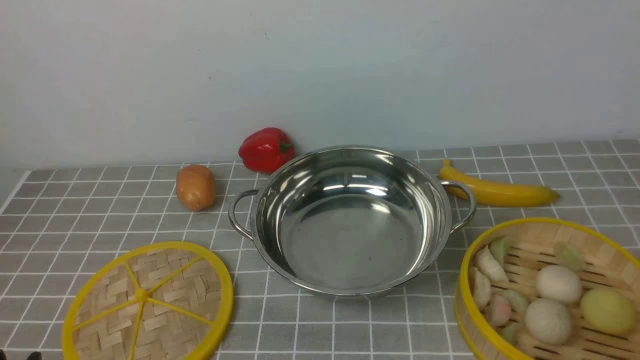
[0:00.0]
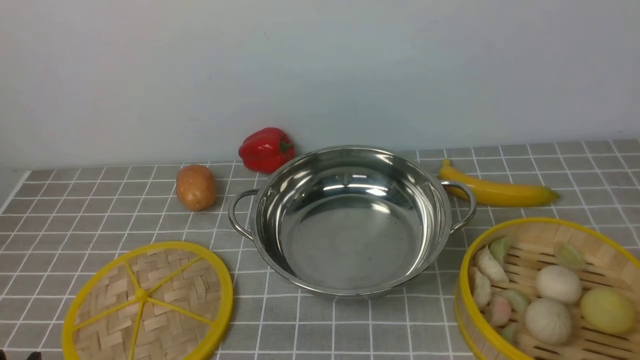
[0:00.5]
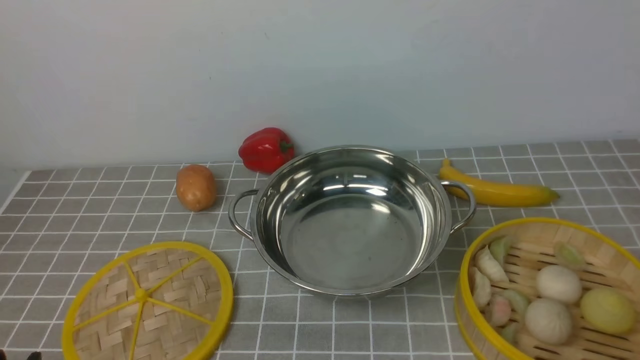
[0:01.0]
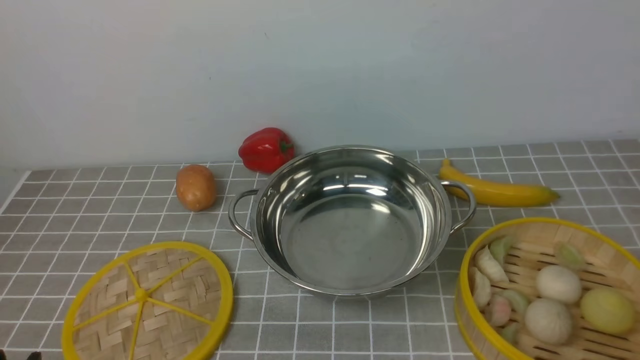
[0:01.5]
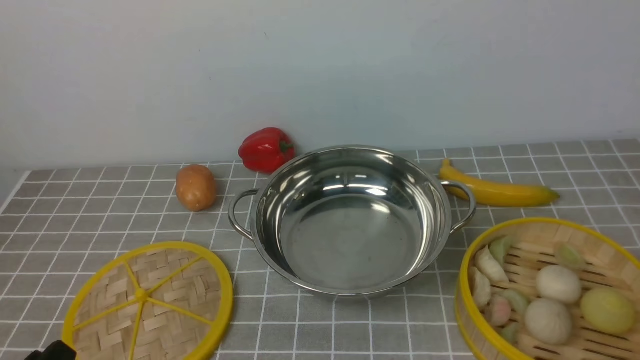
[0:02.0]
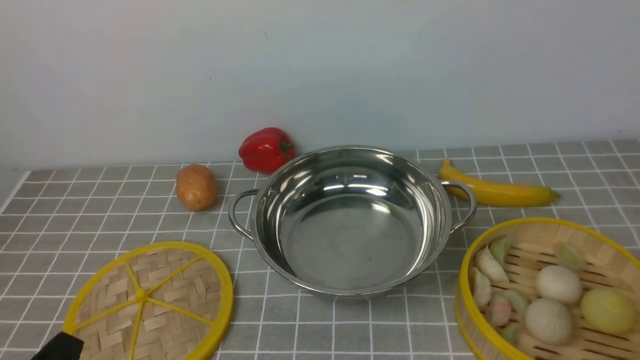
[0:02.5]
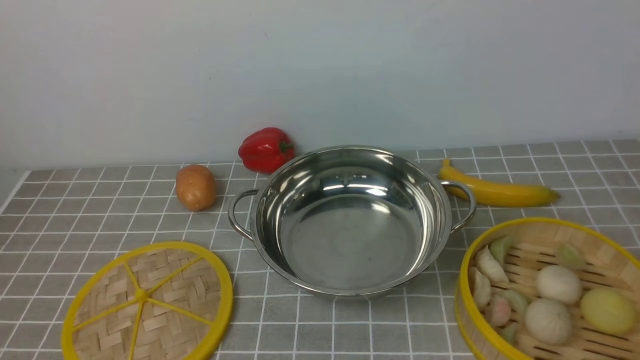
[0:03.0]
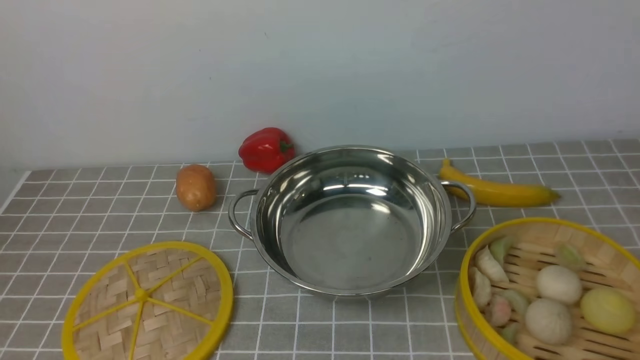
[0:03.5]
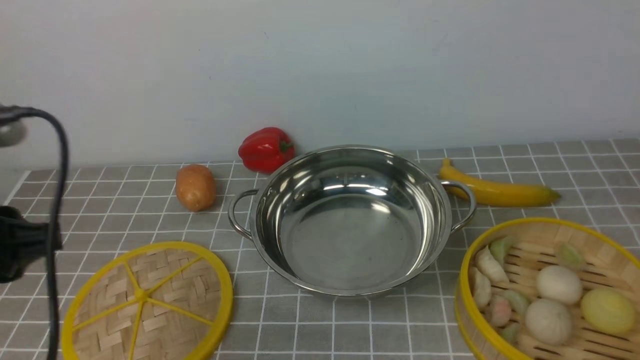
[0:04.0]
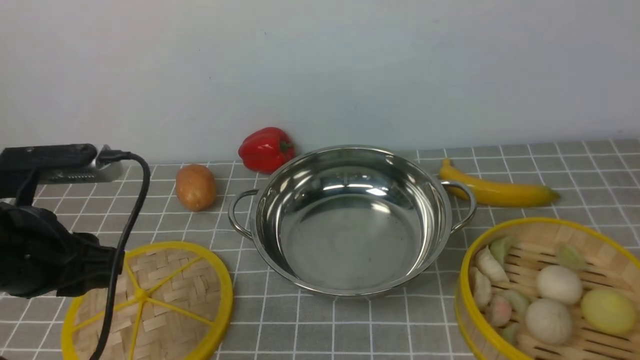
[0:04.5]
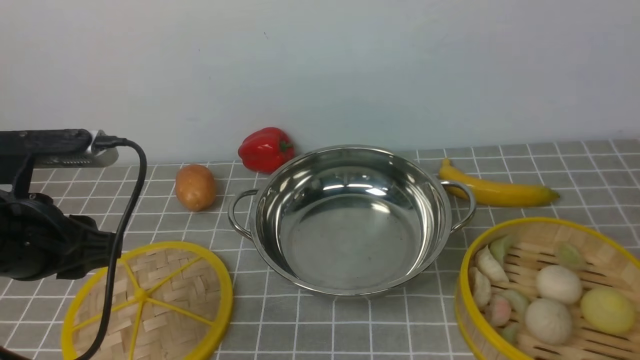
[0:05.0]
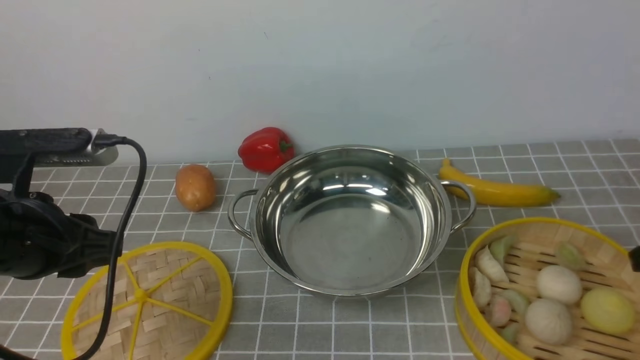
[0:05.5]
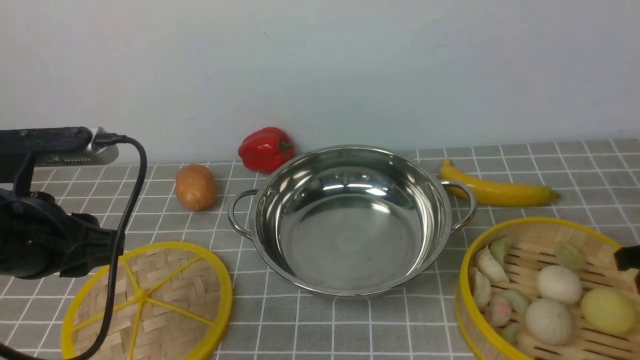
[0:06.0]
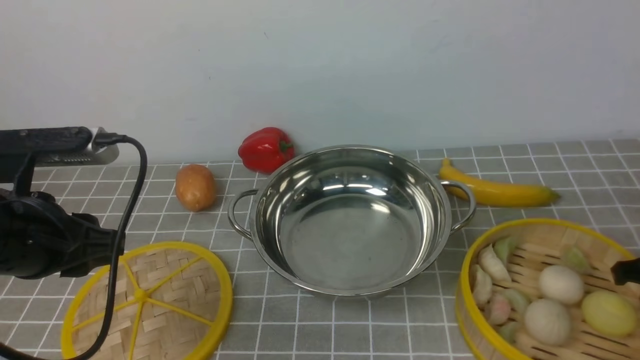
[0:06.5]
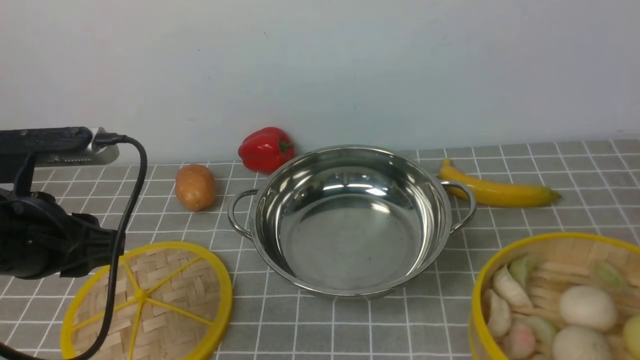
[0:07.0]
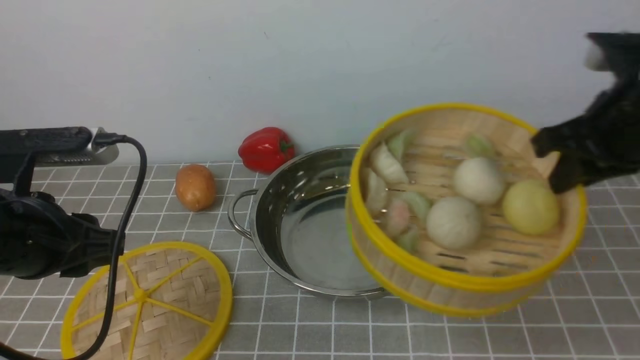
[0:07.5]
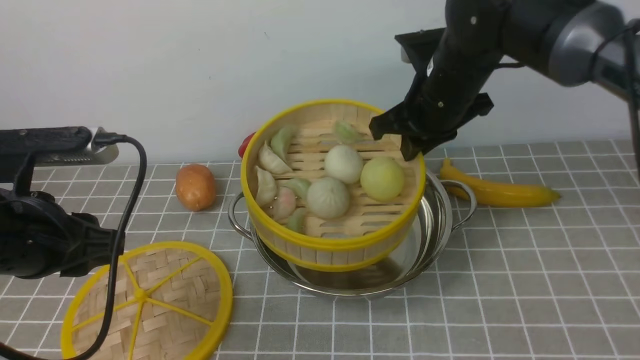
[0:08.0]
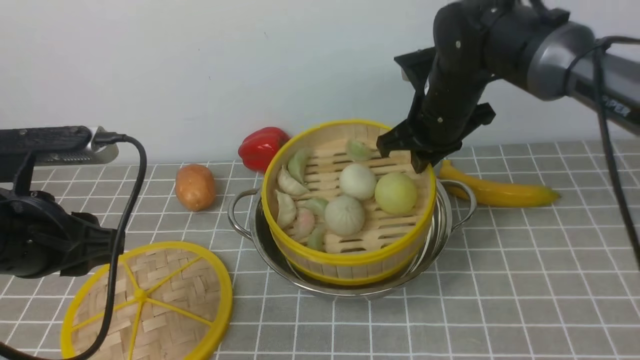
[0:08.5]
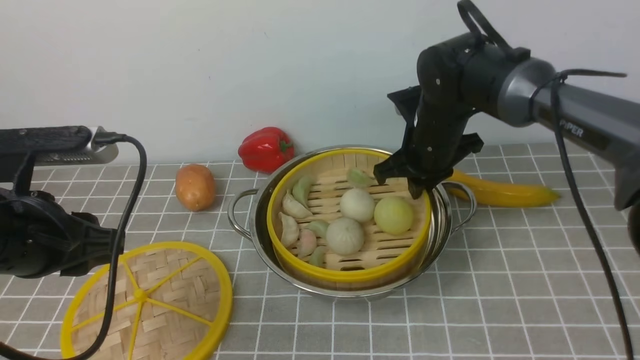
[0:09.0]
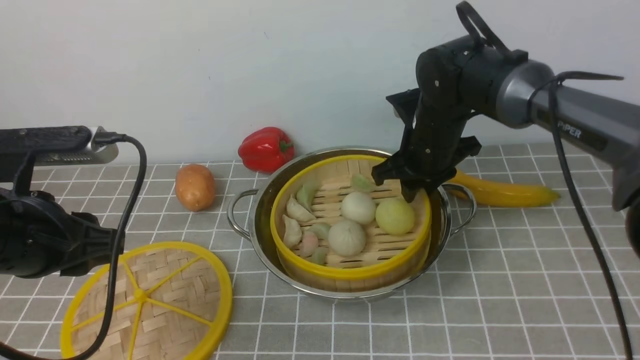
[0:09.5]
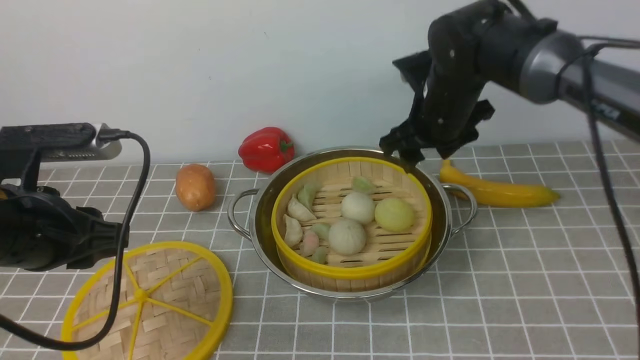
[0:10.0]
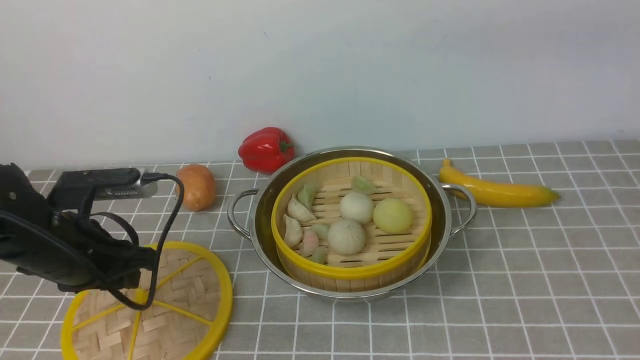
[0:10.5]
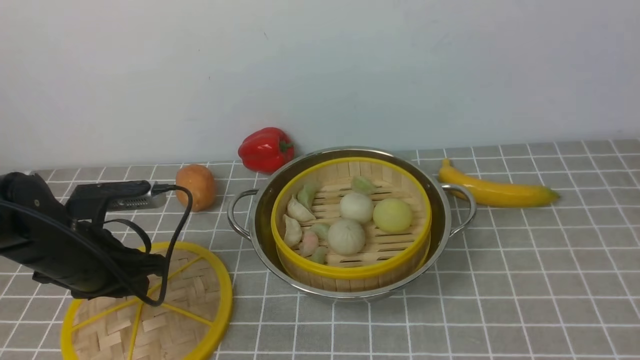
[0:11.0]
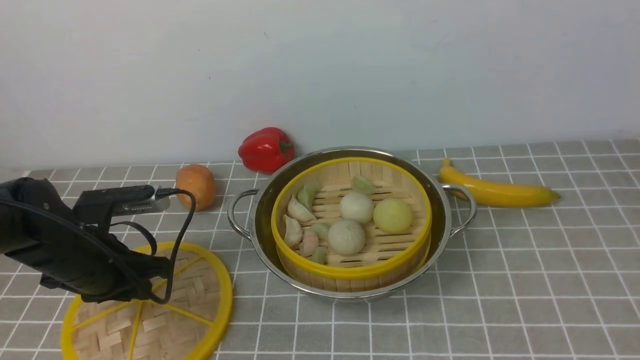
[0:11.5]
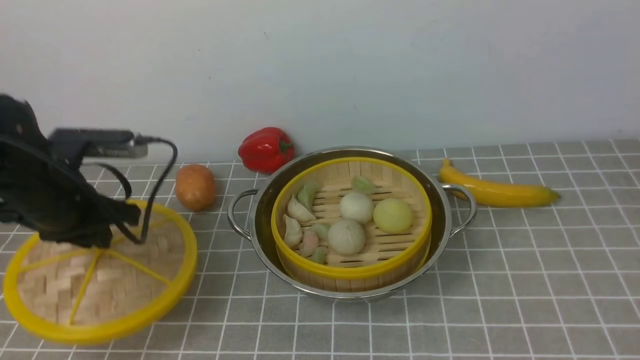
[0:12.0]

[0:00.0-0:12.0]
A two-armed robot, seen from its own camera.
Task of the whole recording: place the steamer in the pot on the grey tablecloth, and put the lid on the steamer.
Step, 0:00.0 to 0:06.5: use the right arm to lift the steamer closest to it.
Step, 0:07.0 to 0:09.5: use the right arm to put the steamer into the iron steamer pot in the middle.
0:02.0 to 0:04.0: The left gripper travels upward and forward by approximately 20 cm.
0:04.0 to 0:06.0: The left gripper moves forward, about 5 cm.
0:06.0 to 0:08.0: The right gripper heads to the left, forward and upward, covering approximately 30 cm.
0:08.0 to 0:10.0: The right gripper reaches about 10 cm downward, then returns, and opens.
0:10.0 to 0:12.0: The left gripper goes roughly 10 cm forward, goes downward and returns, approximately 10 cm each way, and closes its fingers. Meanwhile the right gripper is displaced backward, upward and to the right by about 50 cm.

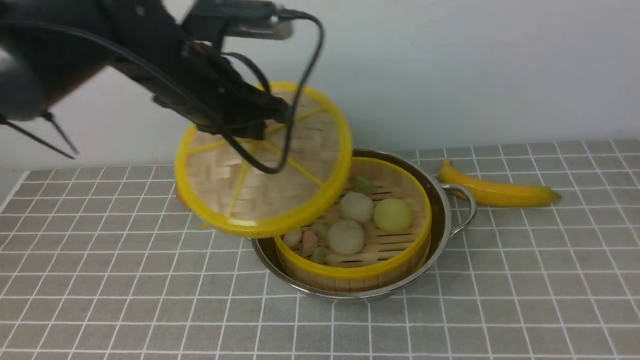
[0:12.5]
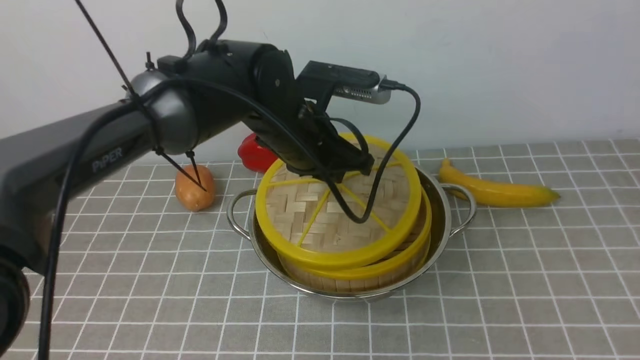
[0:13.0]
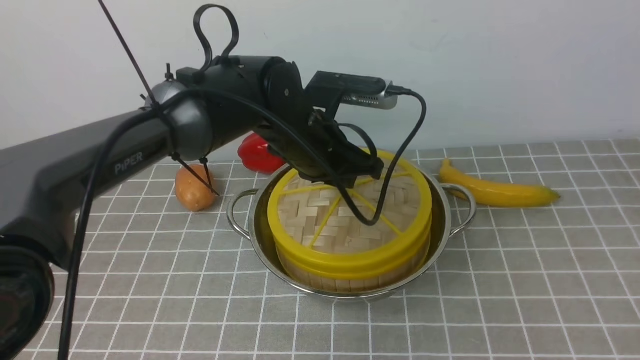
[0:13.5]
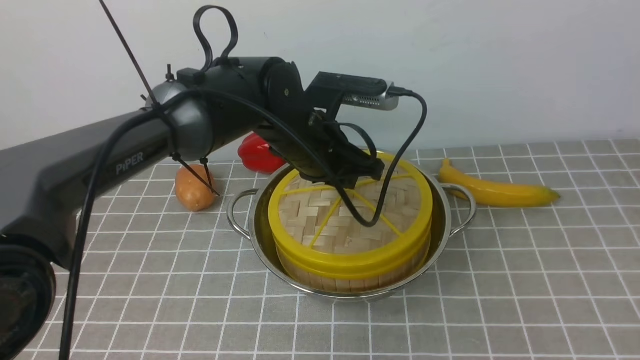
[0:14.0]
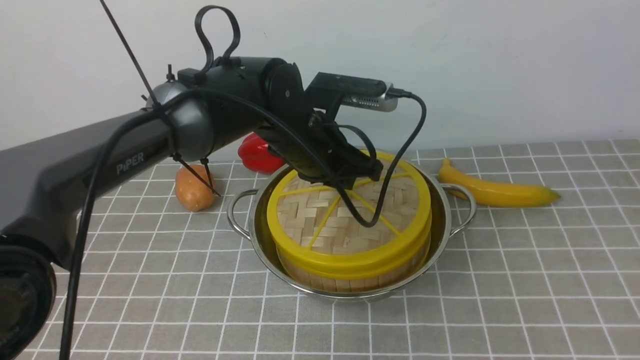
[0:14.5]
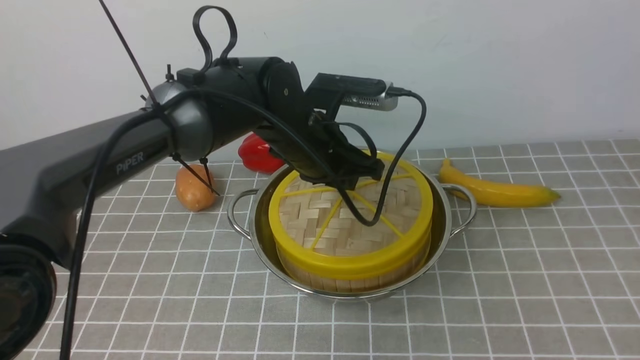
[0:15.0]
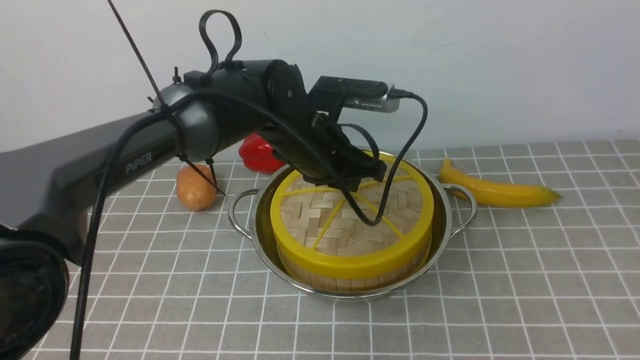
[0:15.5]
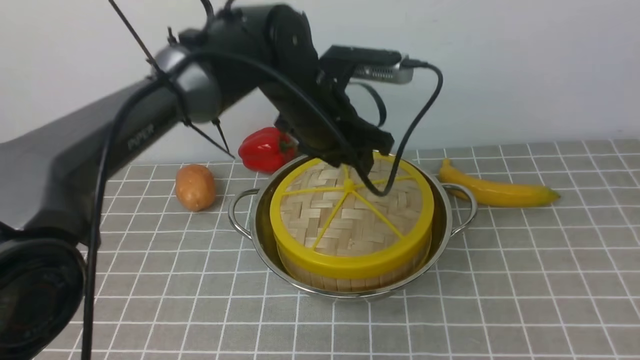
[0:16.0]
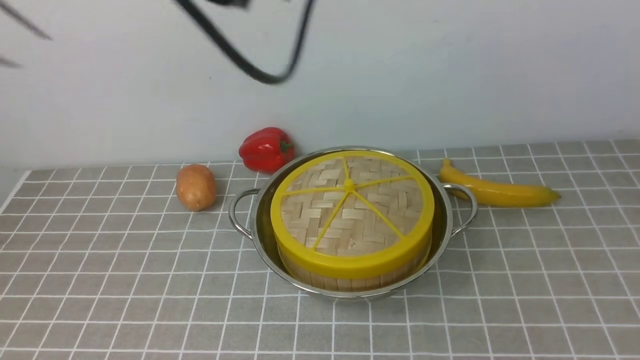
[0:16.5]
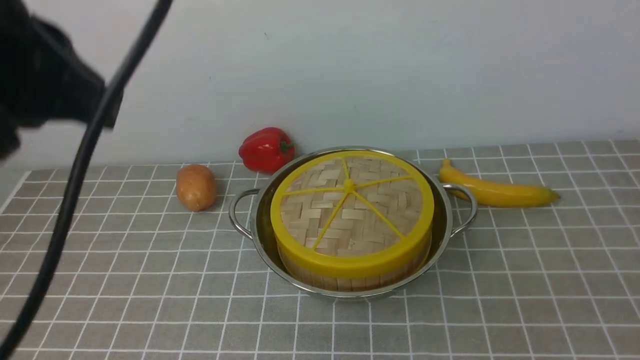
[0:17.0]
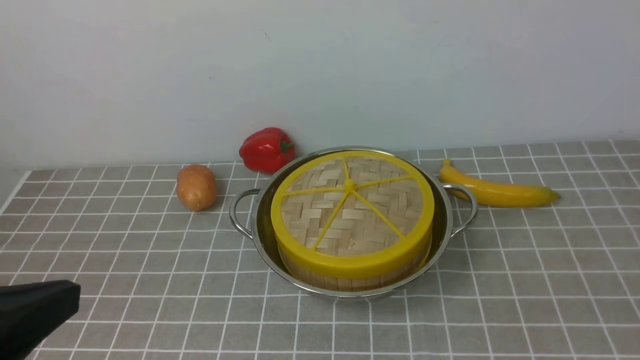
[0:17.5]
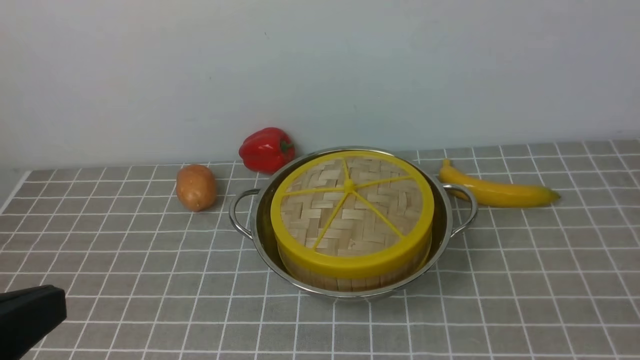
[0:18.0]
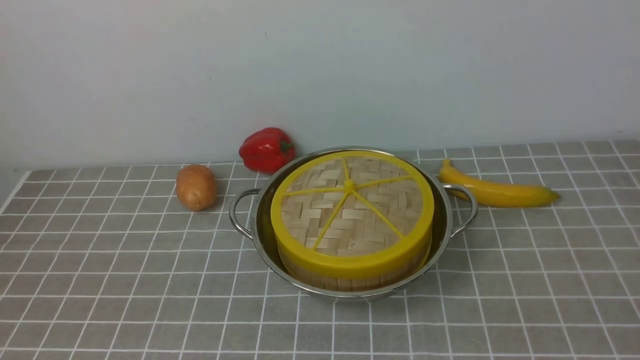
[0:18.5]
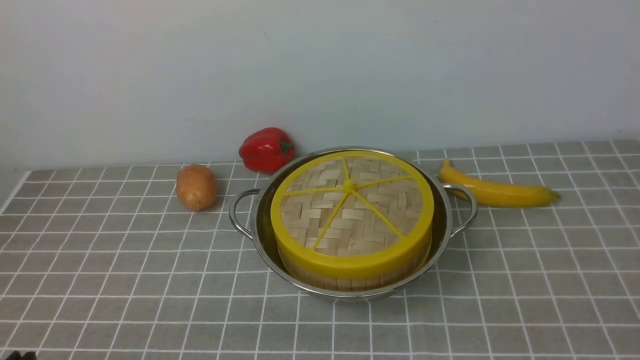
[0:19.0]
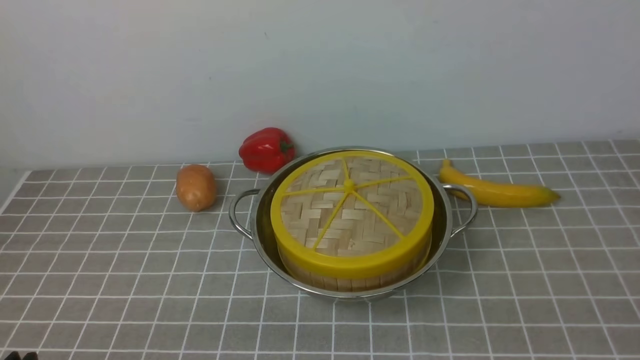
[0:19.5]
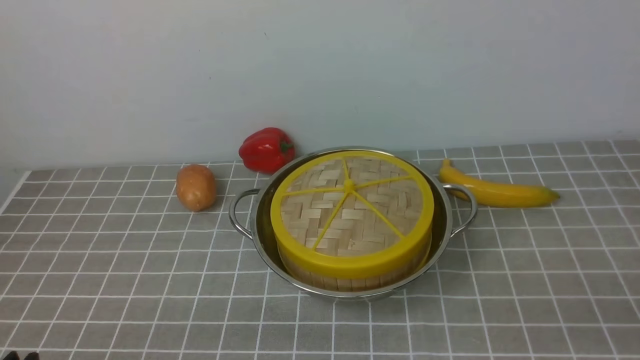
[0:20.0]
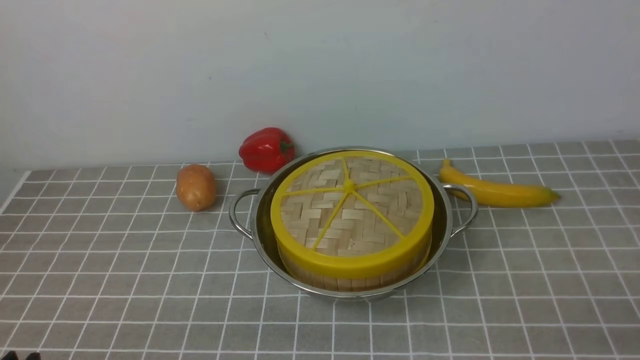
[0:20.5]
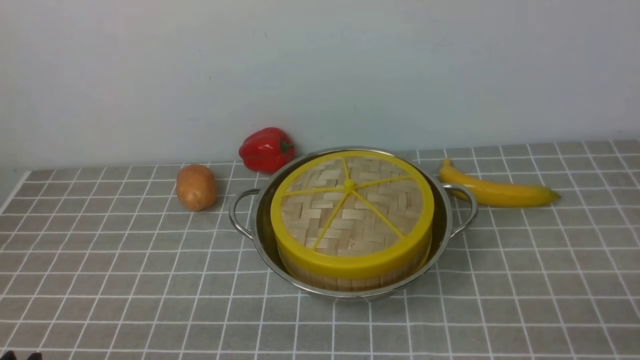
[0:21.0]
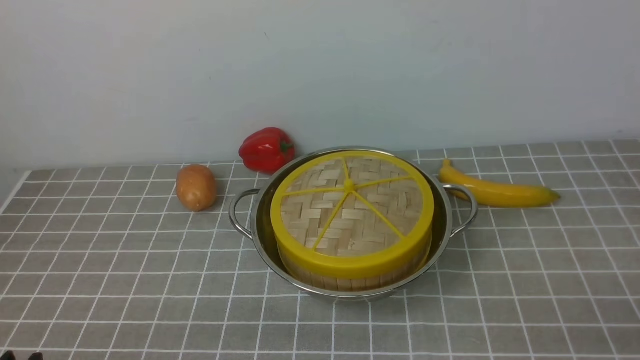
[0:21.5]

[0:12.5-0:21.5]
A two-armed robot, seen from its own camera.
Task of the whole recording: place the steamer in the pot on the grey tablecloth, and put the lid on the steamer.
Step, 0:12.5 to 0:16.0: use the left arm to place the steamer lid on the steamer.
0:12.5 to 0:14.5: The left gripper shifts approximately 15 cm to the right and downward.
0:14.5 to 0:17.0: The left gripper heads backward, upward and to the left, covering approximately 35 cm, and closes. The right gripper moves downward, approximately 25 cm, and closes up.
0:17.0 to 0:19.5: The left gripper travels downward and backward by about 30 cm, and opens up.
